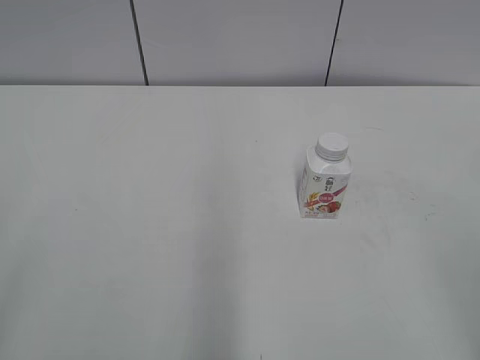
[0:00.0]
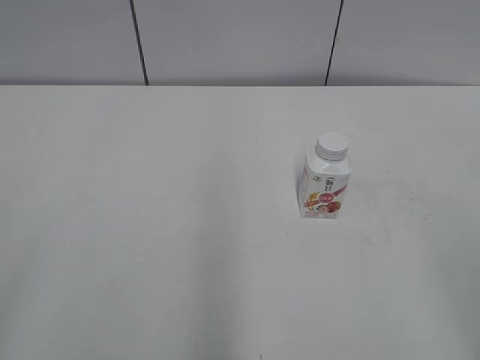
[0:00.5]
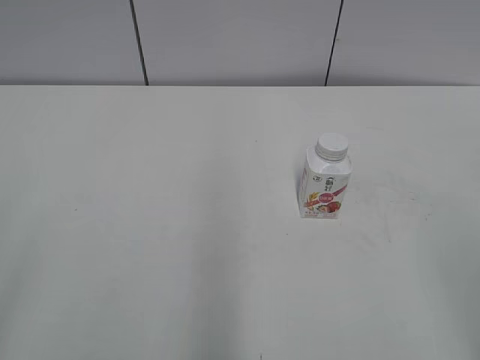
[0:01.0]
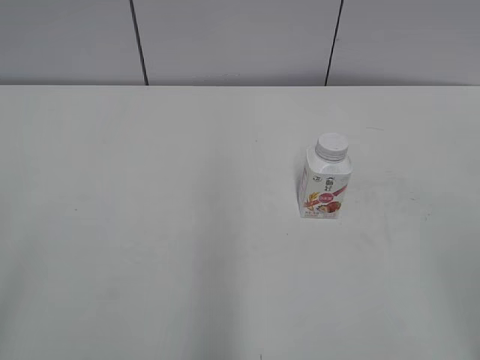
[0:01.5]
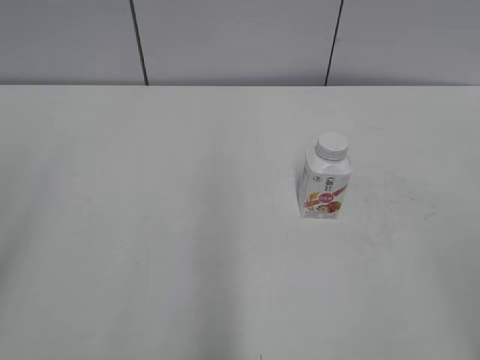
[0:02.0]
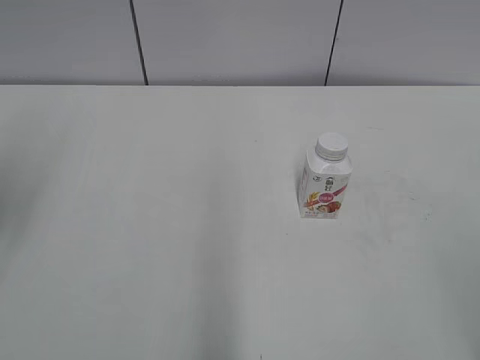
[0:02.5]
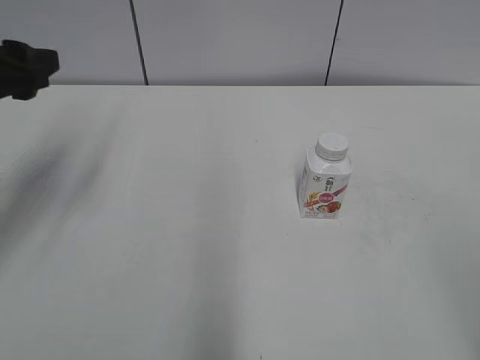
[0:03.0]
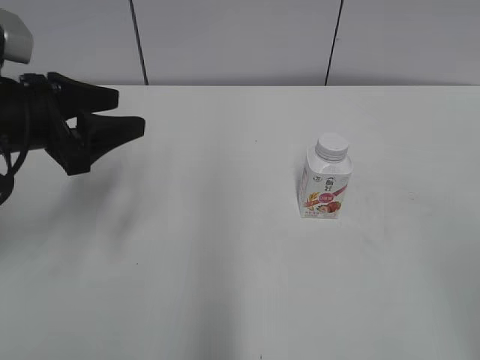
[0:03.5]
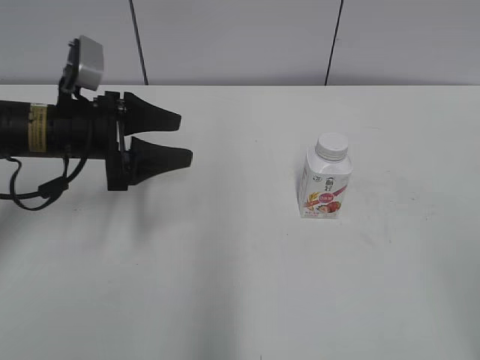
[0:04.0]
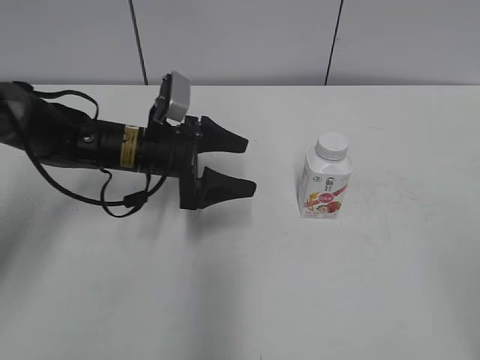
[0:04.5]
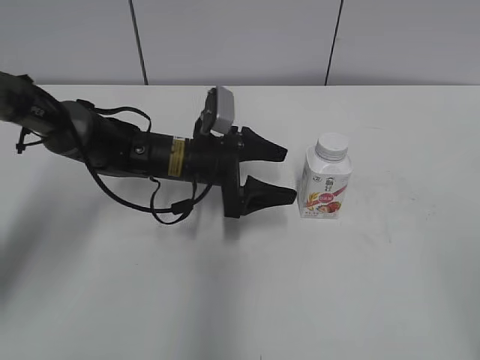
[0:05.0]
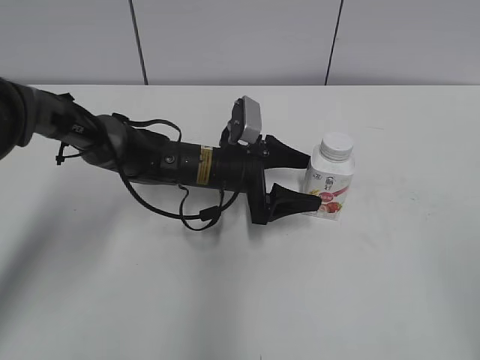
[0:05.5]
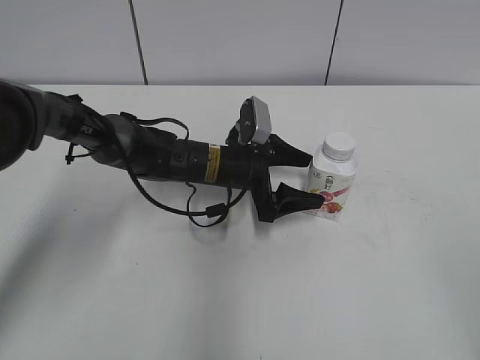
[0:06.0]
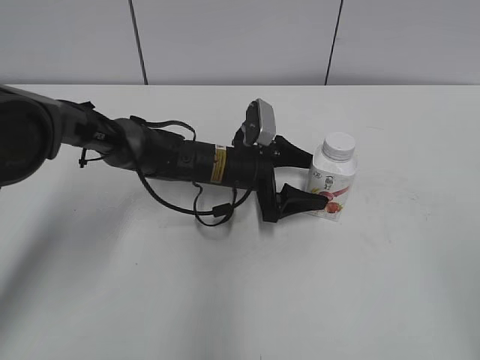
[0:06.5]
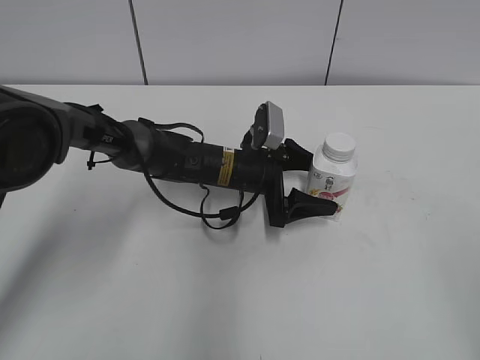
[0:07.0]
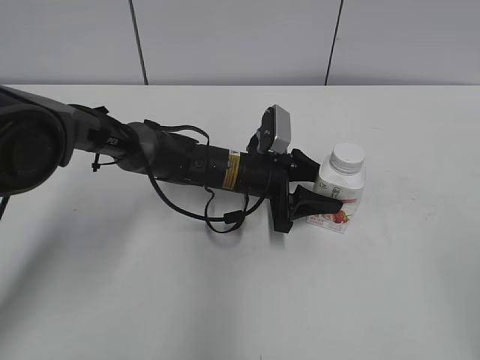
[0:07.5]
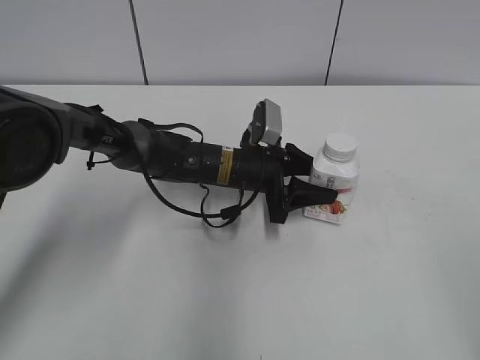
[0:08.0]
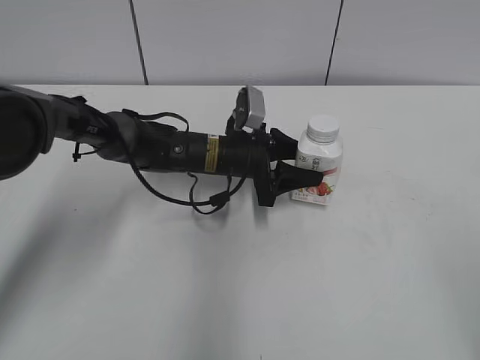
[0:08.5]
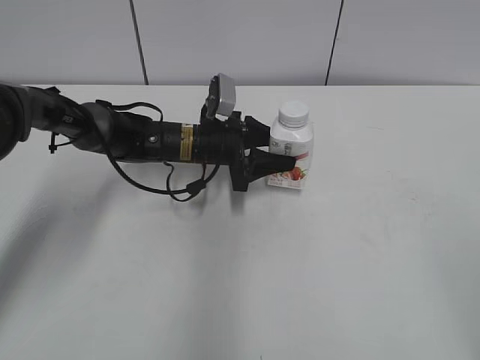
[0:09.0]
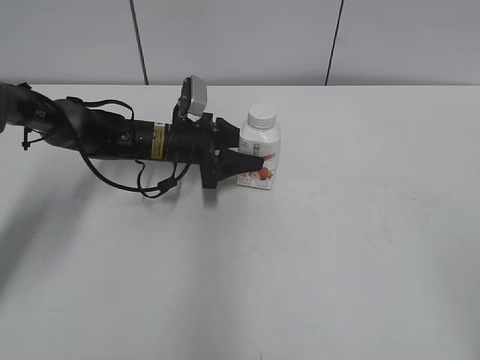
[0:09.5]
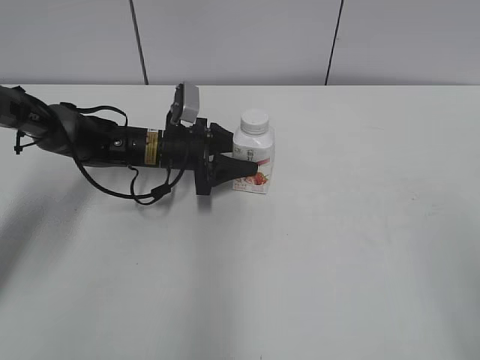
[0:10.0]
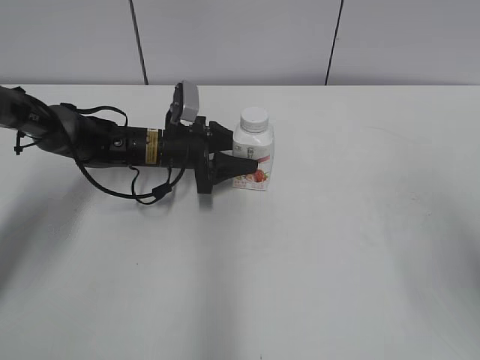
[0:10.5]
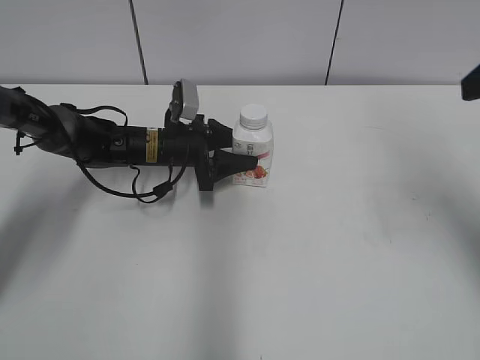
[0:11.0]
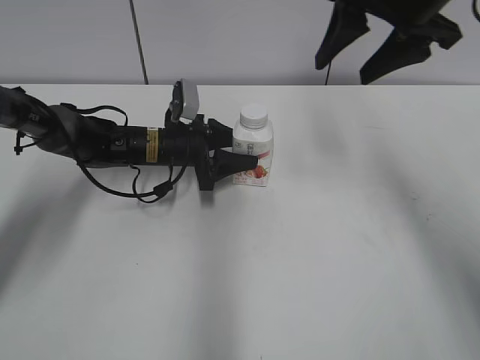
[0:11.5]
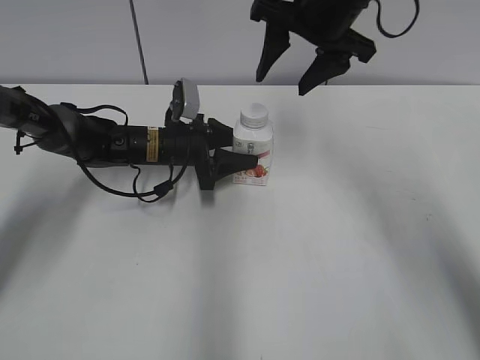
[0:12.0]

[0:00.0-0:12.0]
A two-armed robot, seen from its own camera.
Step, 0:00.0 to 0:07.0: Grab the Yili Changqing with the left hand.
Step, 0:07.5 to 0:10.5: Move the Yili Changqing from right to left.
0:02.0 to 0:04.0: The left gripper travels forward and downward by about 30 cm.
0:04.0 to 0:06.0: The left gripper travels to the right and downward by about 20 cm, and opens its fingers.
0:06.0 to 0:08.0: The left gripper closes up.
0:08.0 to 0:10.0: The left gripper is displaced to the left by some 10 cm.
0:10.0 to 0:12.0: The right gripper moves forward and to the left, roughly 40 cm.

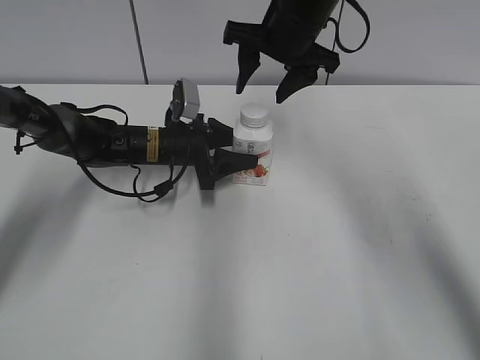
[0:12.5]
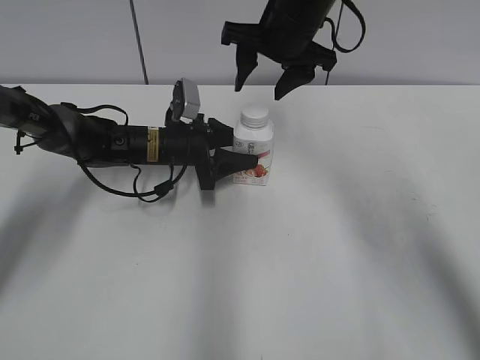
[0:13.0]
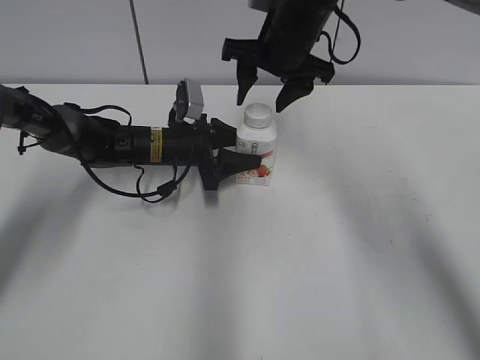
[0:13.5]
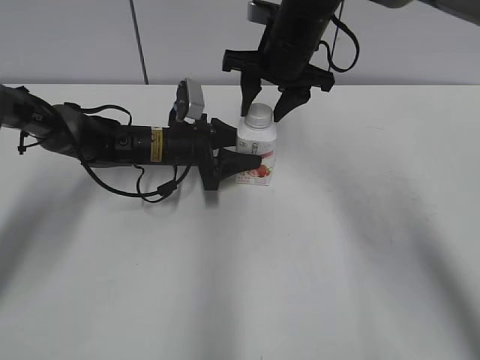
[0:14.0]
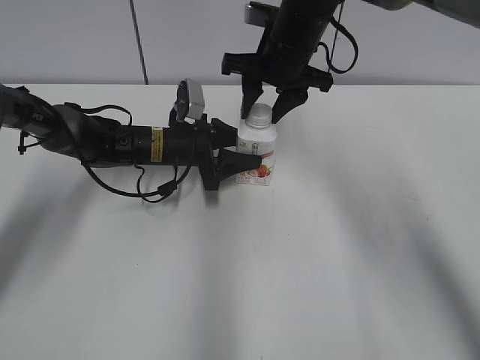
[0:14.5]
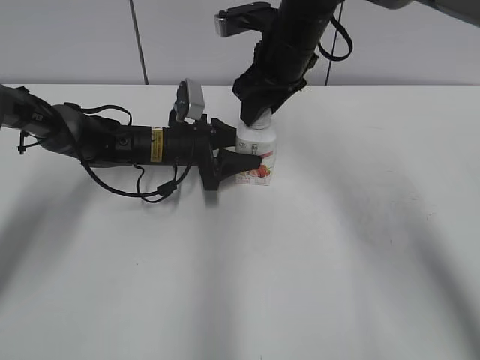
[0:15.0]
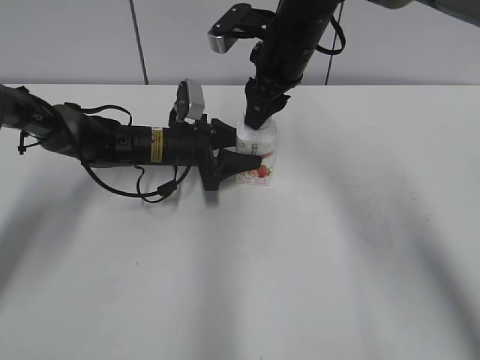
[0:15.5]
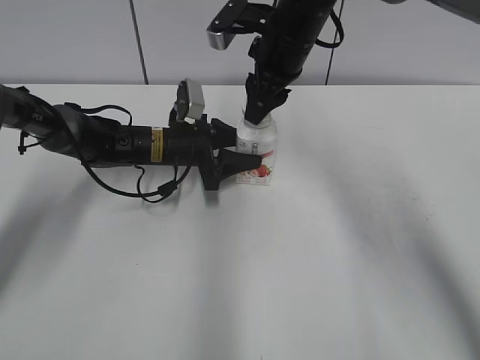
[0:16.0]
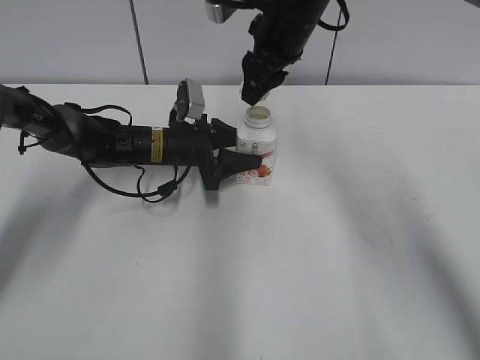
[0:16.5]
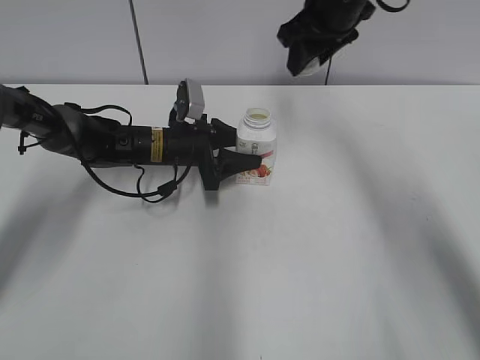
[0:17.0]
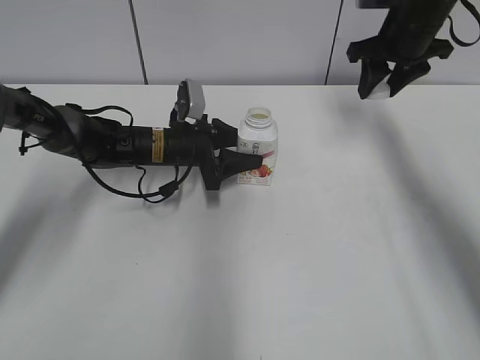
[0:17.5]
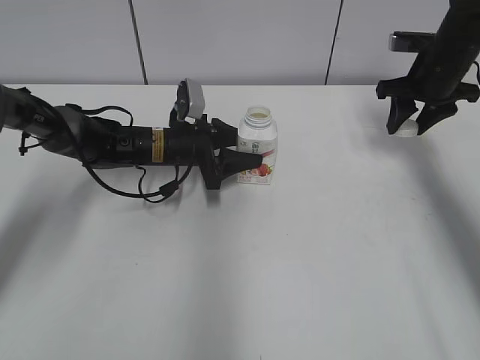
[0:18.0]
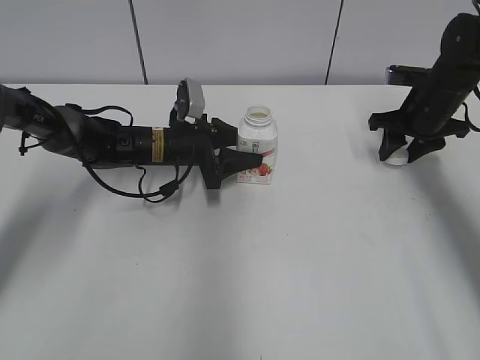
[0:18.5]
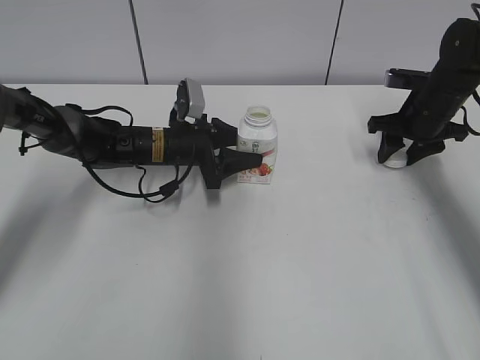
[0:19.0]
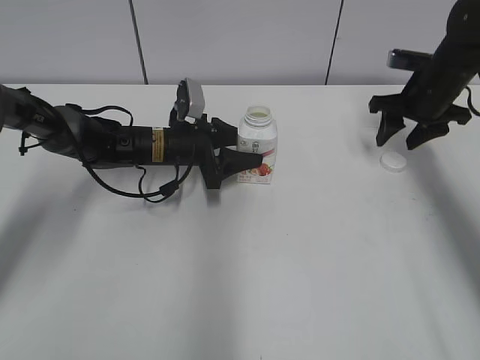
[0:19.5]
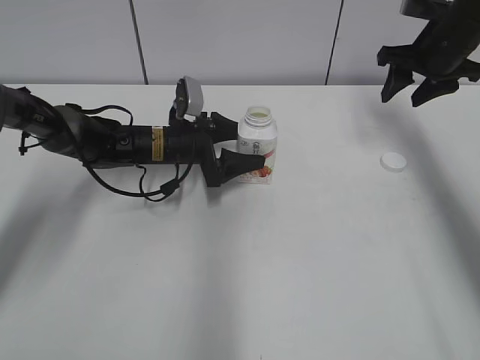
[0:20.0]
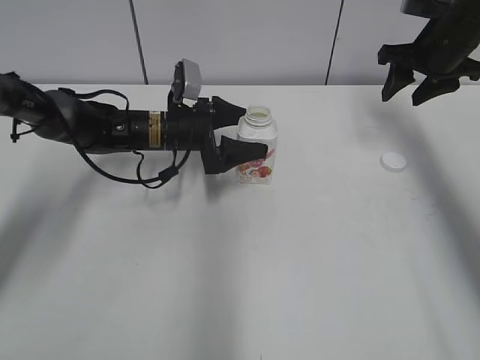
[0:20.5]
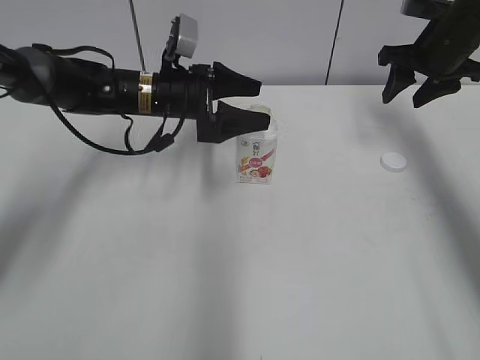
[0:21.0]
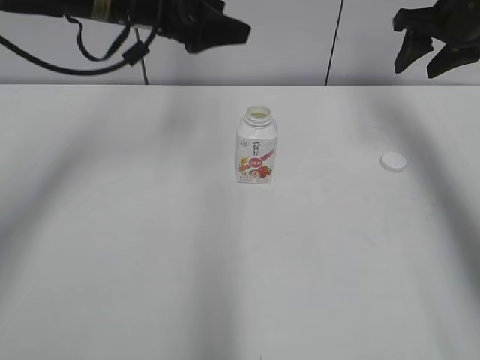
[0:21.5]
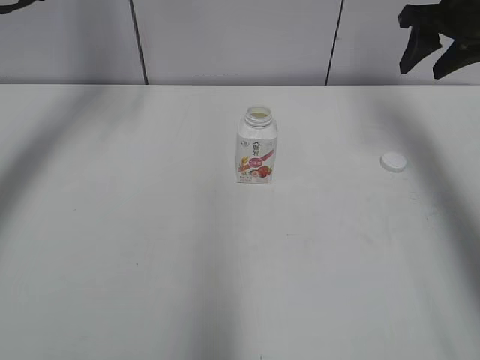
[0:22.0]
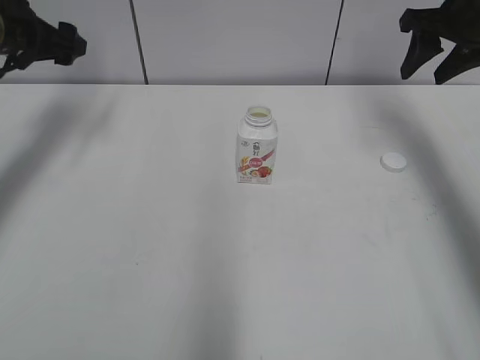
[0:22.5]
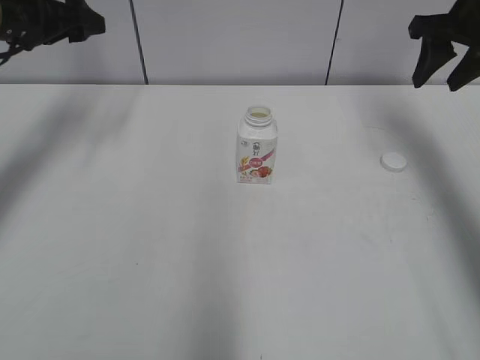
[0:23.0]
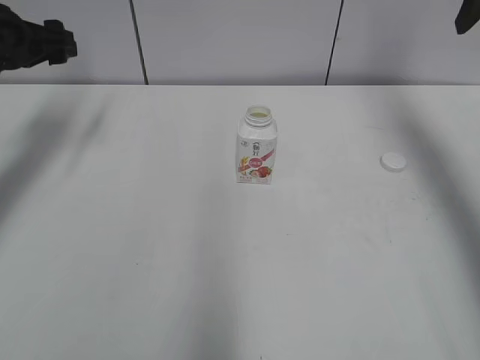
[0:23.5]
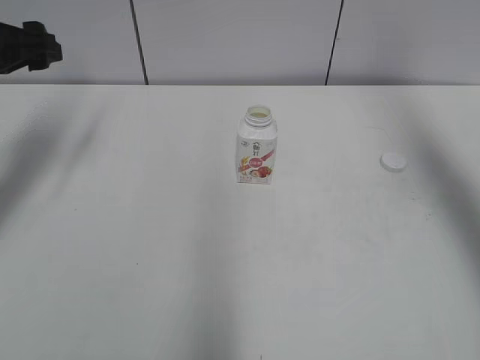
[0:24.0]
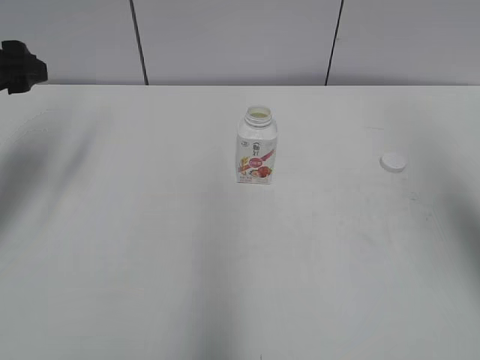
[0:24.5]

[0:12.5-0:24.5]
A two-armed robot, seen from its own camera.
Step, 0:16.5 to 0:19.0: Place the bottle cap on the right.
0:12.5 to 0:14.5: The right gripper closes.
0:16.5 to 0:18.5: The right gripper shifts some 25 cm to the right and downward.
0:18.5 to 0:20.5: The right gripper travels upward by some 10 cm, and opens up; the left gripper opens its fingers.
0:20.5 to 0:22.5: The right gripper goes about 5 cm upward. Meanwhile the left gripper moves to the left and upward, some 25 cm.
0:22.5 to 0:24.5: The right gripper shifts approximately 25 cm backward and upward, while the left gripper heads backward, covering about 10 cm.

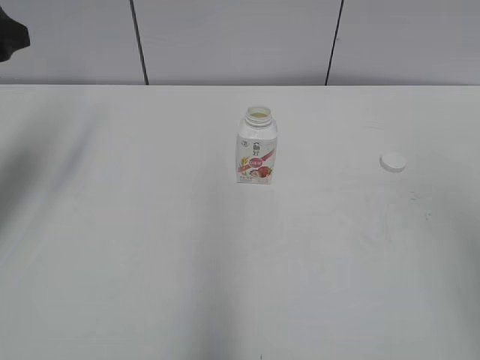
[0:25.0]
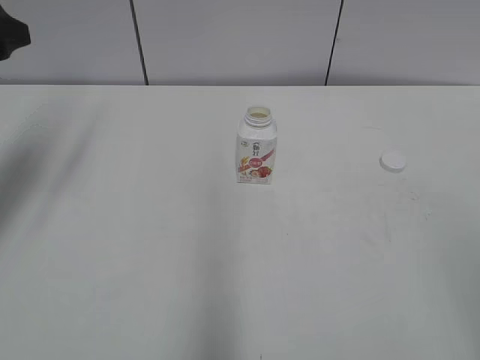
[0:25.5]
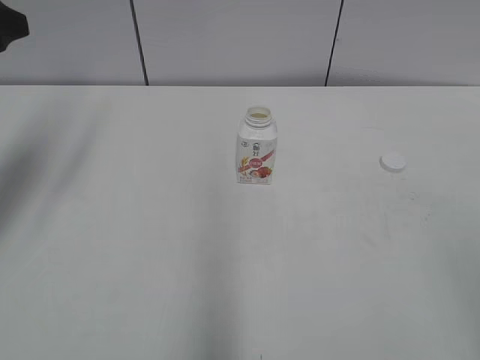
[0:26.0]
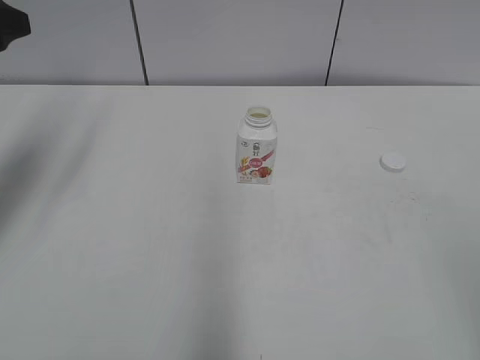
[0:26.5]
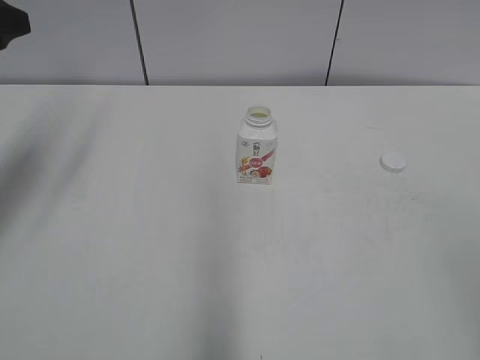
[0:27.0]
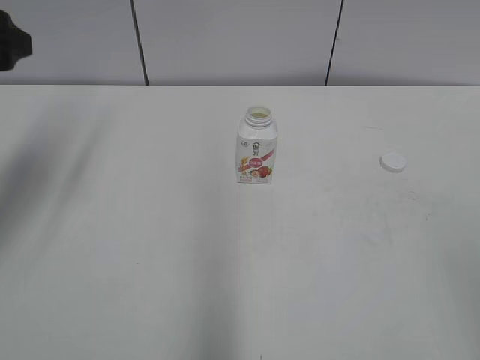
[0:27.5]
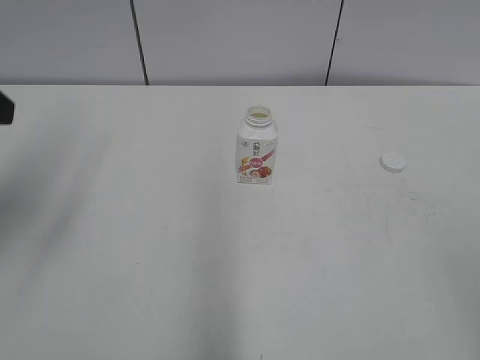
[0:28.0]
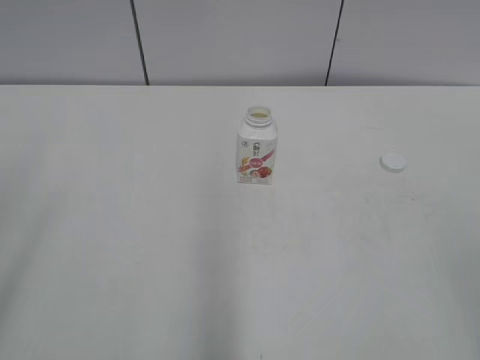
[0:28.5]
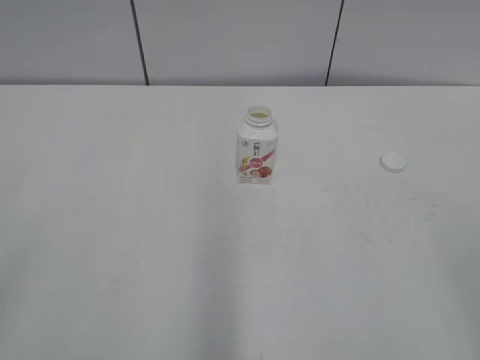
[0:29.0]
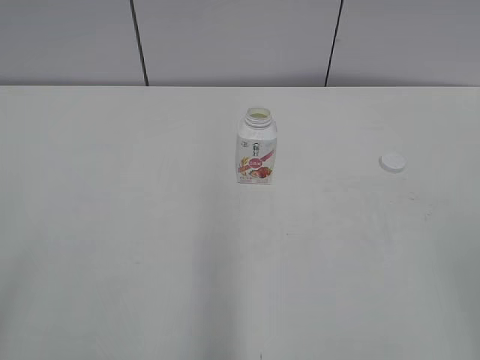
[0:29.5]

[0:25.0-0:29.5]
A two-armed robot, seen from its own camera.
0:27.0 to 0:29.5: The left gripper shifts roughly 30 cm backward.
